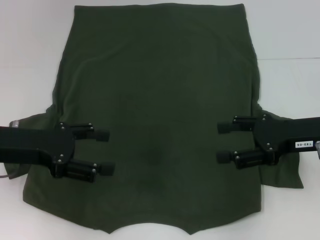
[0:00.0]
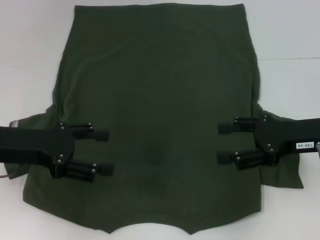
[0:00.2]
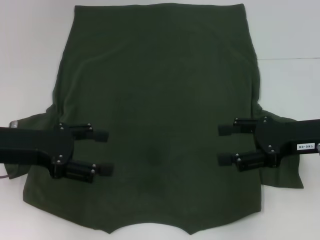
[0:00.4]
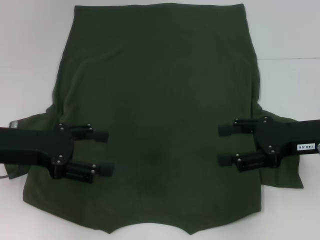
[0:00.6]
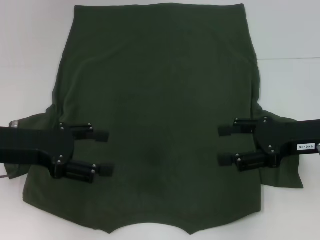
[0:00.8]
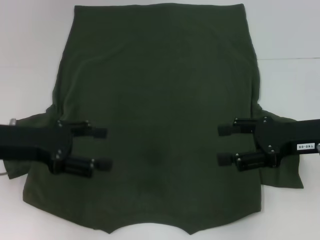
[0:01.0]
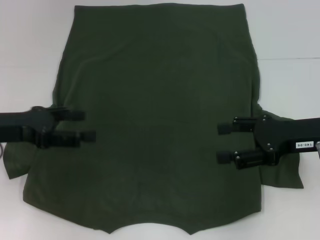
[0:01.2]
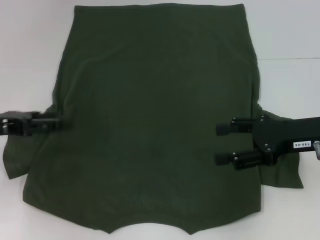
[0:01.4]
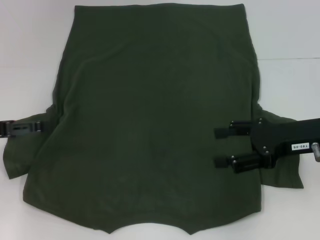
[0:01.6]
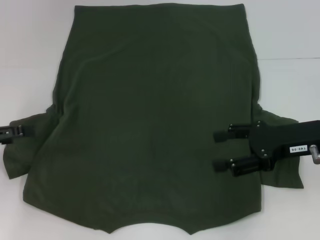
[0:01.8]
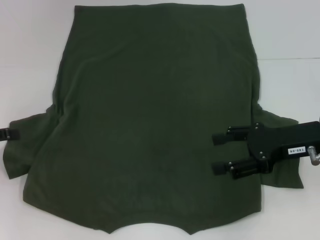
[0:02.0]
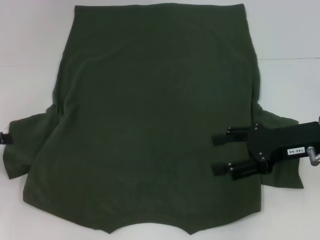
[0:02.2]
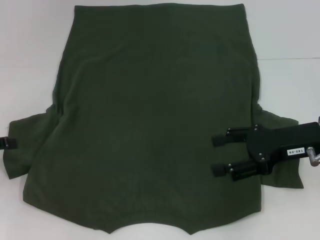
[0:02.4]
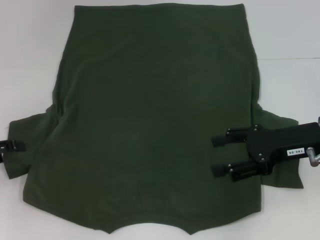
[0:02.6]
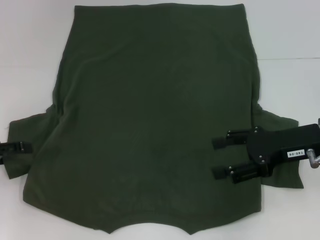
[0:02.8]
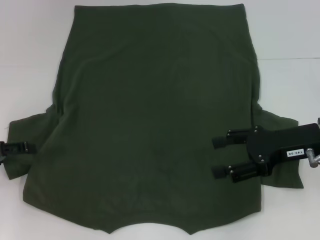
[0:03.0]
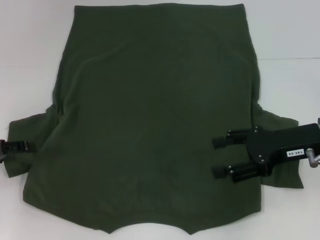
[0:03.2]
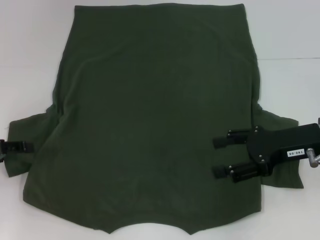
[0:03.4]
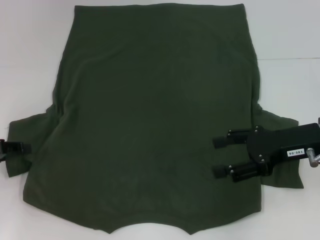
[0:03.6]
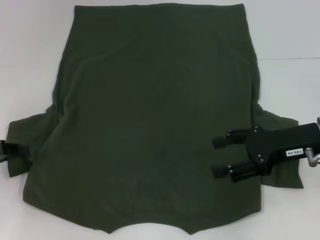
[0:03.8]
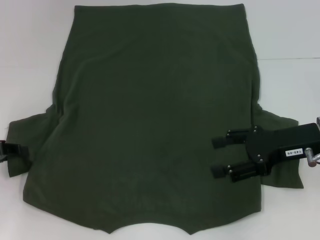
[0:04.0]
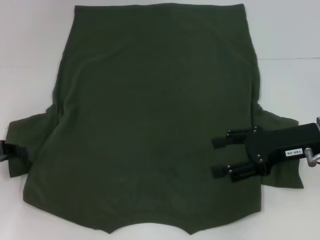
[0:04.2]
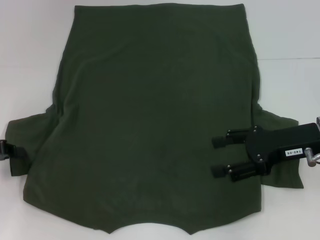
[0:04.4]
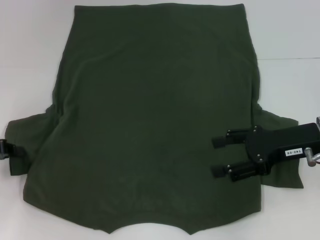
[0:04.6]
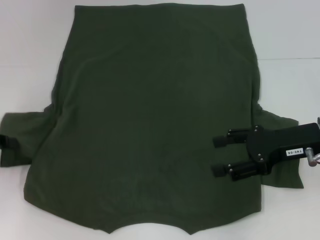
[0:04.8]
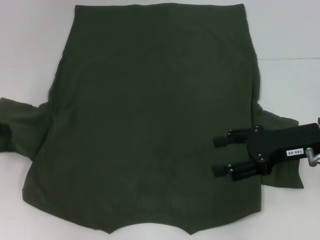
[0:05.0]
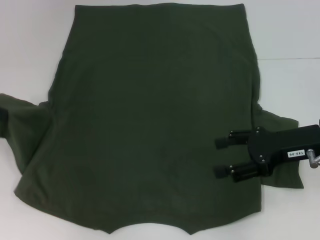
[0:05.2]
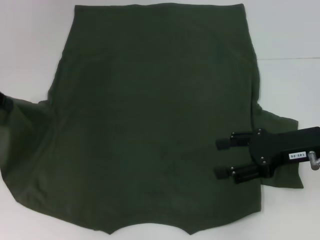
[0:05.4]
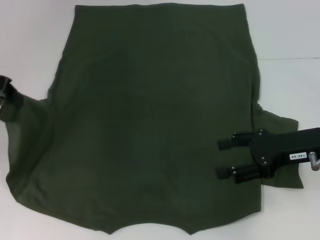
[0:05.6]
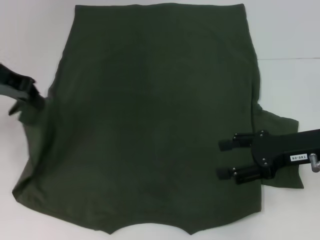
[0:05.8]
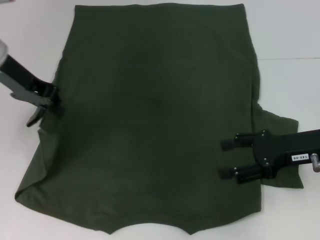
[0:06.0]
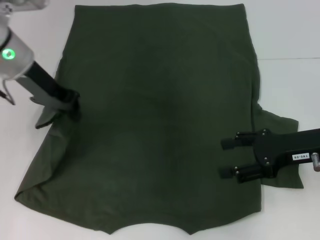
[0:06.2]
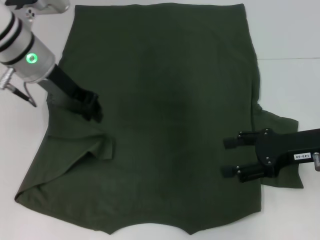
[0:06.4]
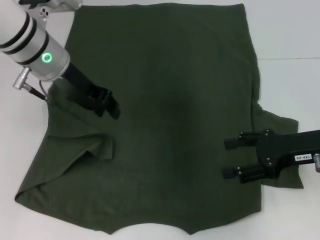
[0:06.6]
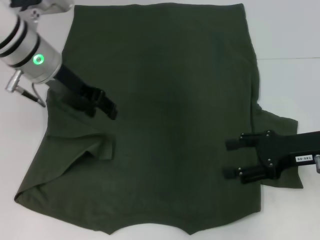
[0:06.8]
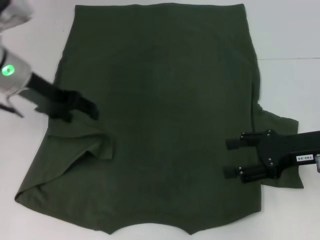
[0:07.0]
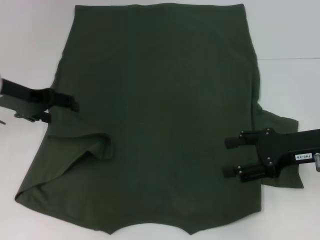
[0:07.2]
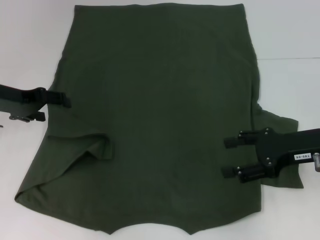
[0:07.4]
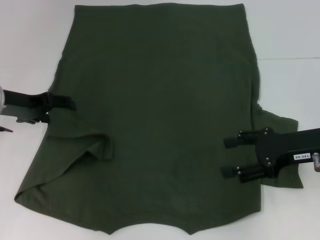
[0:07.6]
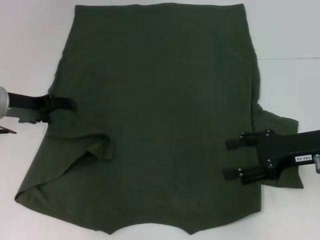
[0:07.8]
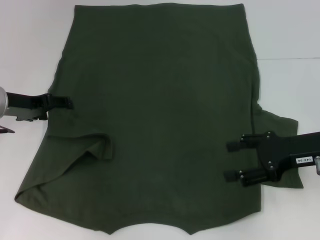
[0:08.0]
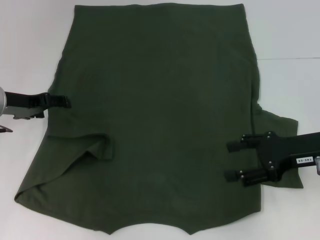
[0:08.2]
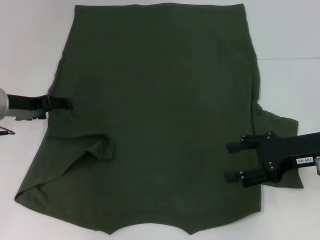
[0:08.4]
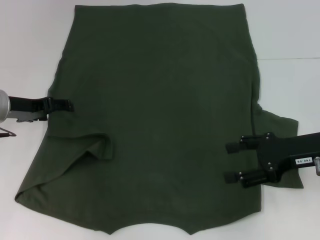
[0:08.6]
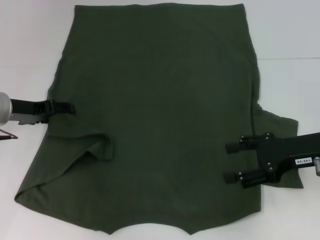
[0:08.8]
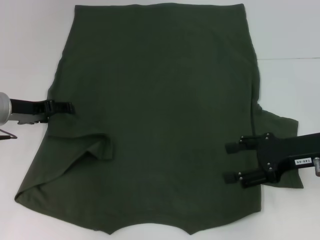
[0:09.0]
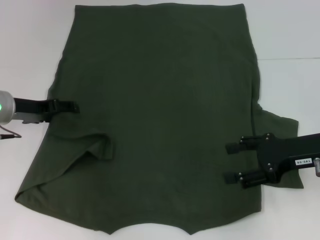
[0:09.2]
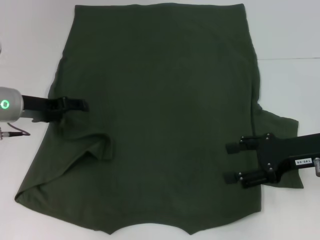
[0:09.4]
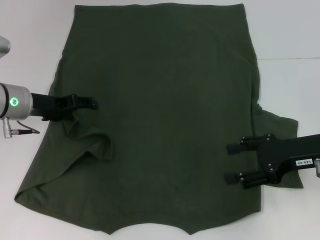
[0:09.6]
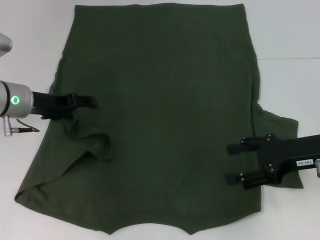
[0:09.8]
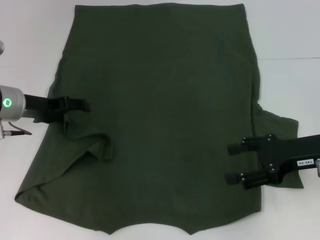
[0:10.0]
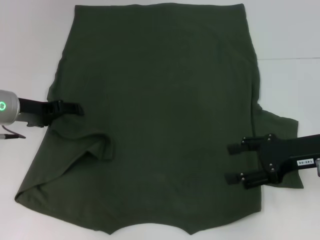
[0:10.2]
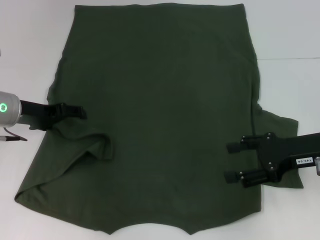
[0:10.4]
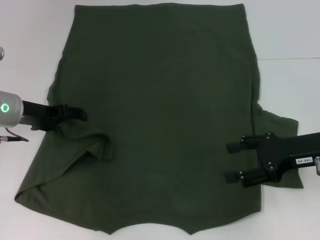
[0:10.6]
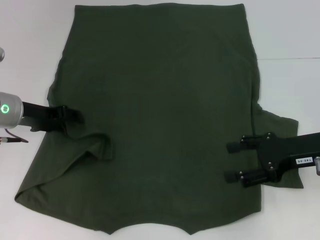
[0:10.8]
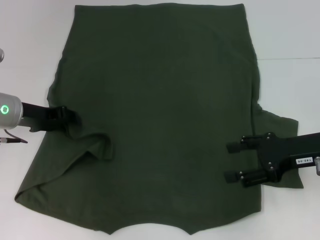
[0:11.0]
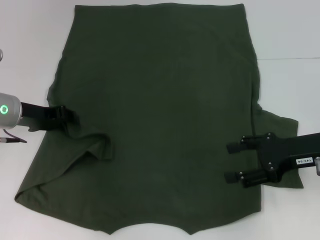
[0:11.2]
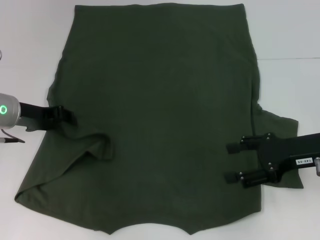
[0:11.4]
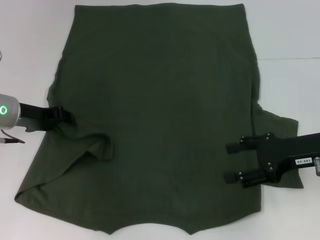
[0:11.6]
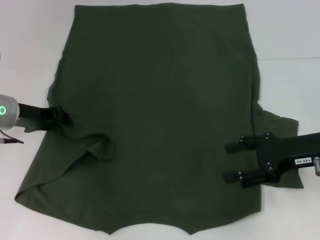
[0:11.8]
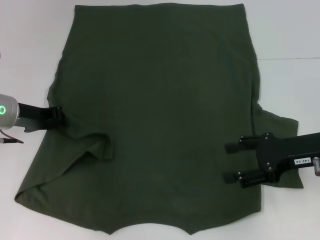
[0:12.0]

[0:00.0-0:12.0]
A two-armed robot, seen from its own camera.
0:00.0 to 0:01.6: The left gripper moves to the left, roughly 10 cm.
0:04.4 to 0:06.0: The left gripper shifts approximately 20 cm upward, to the right and forward.
0:06.0 to 0:07.6: The left gripper moves downward, roughly 10 cm, travels to the right and back again, some 5 cm each way, and opens its fingers.
0:07.6 to 0:10.4: There are only small adjustments of the grippers.
0:10.4 to 0:12.0: The left gripper closes up.

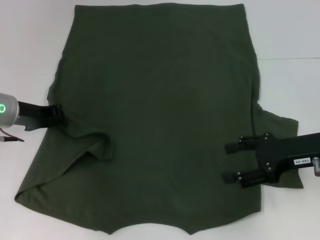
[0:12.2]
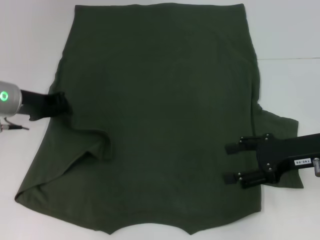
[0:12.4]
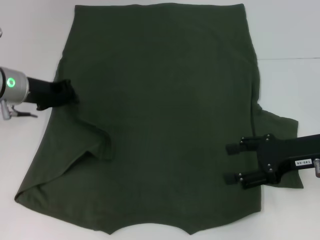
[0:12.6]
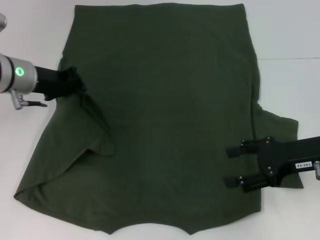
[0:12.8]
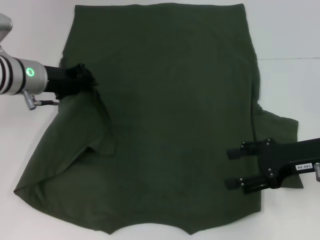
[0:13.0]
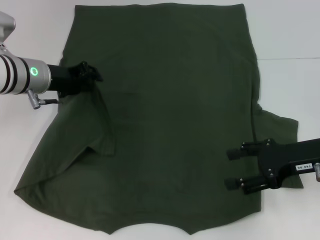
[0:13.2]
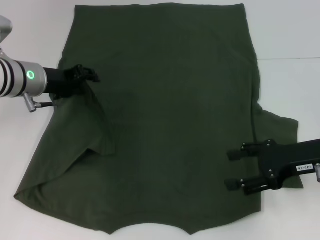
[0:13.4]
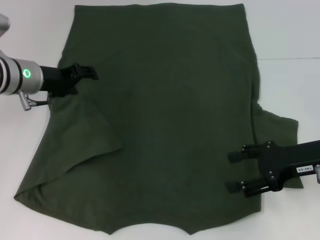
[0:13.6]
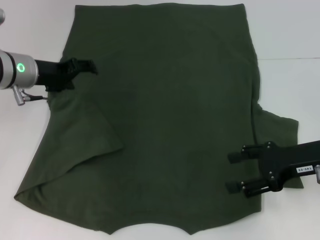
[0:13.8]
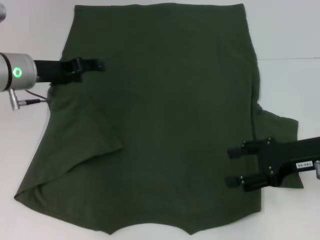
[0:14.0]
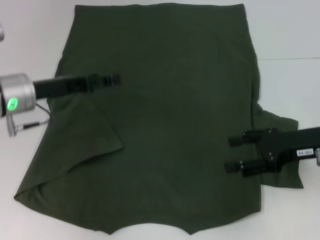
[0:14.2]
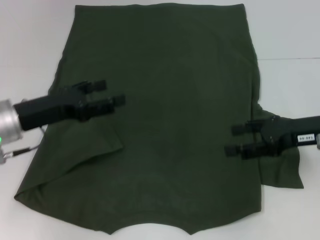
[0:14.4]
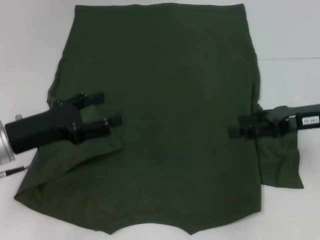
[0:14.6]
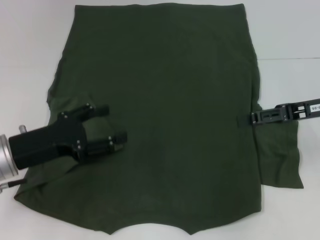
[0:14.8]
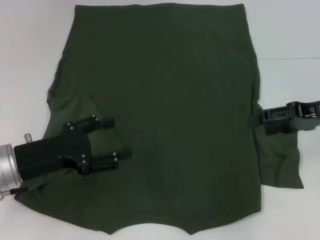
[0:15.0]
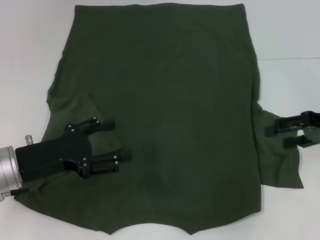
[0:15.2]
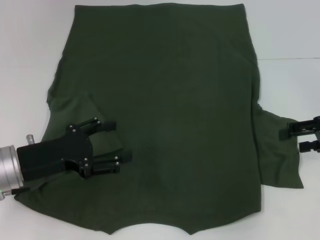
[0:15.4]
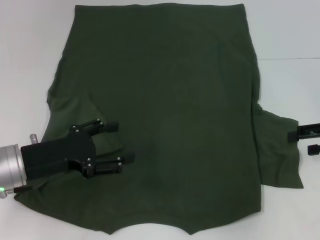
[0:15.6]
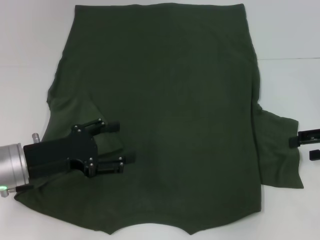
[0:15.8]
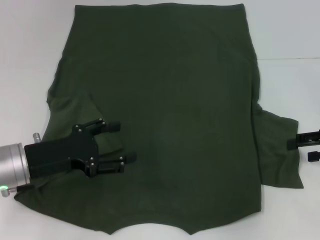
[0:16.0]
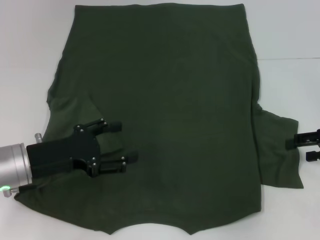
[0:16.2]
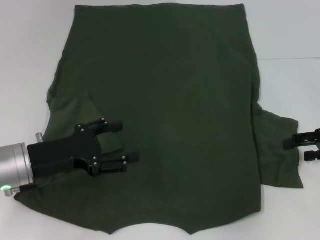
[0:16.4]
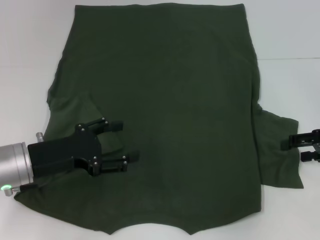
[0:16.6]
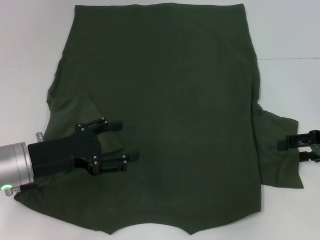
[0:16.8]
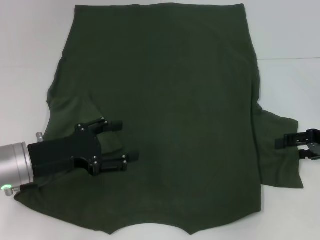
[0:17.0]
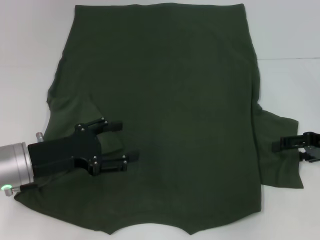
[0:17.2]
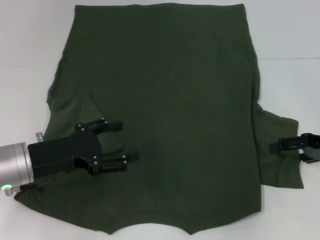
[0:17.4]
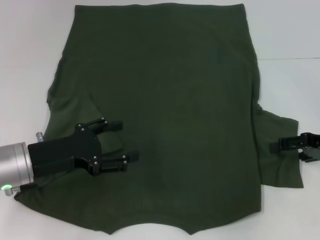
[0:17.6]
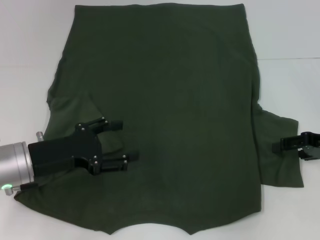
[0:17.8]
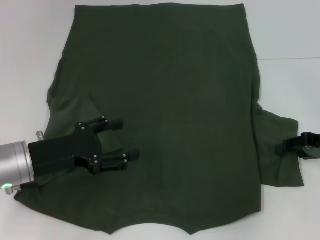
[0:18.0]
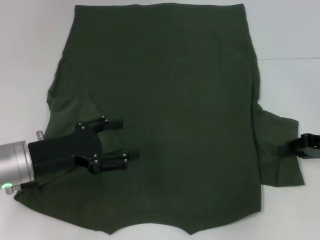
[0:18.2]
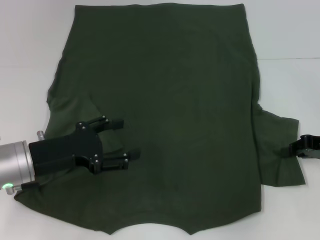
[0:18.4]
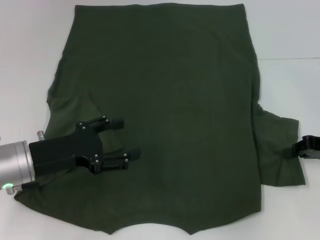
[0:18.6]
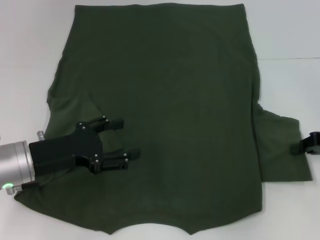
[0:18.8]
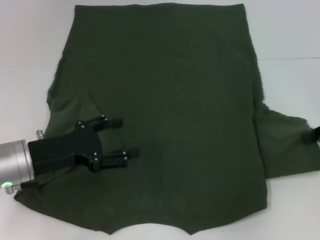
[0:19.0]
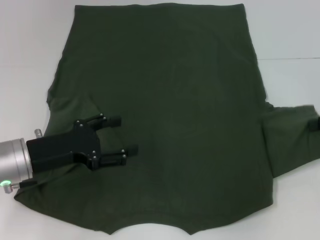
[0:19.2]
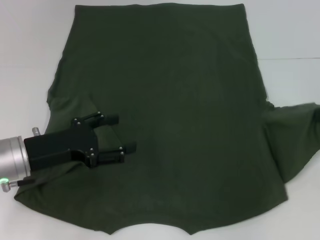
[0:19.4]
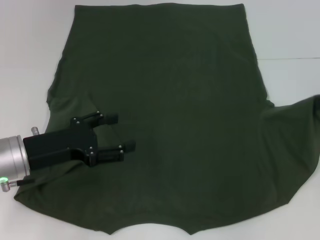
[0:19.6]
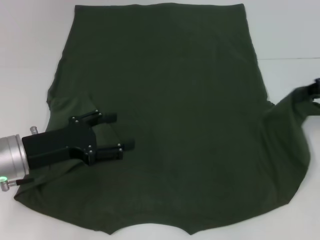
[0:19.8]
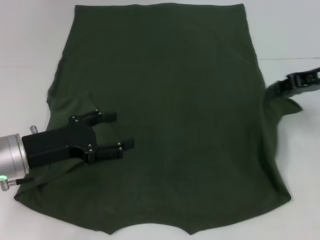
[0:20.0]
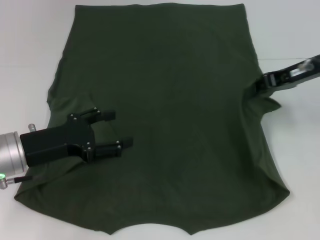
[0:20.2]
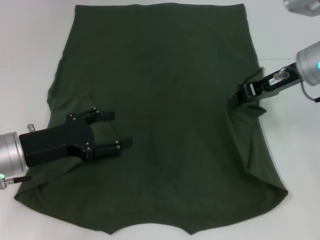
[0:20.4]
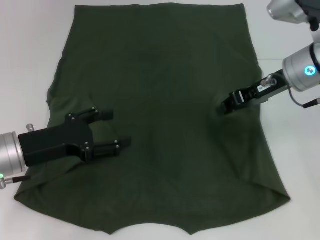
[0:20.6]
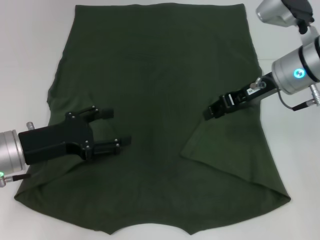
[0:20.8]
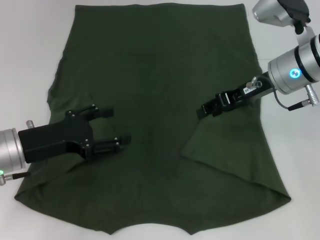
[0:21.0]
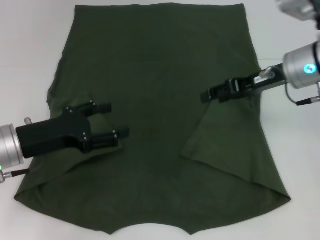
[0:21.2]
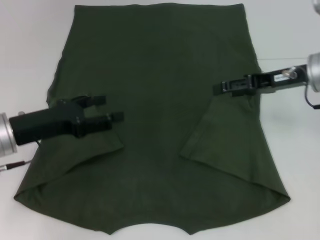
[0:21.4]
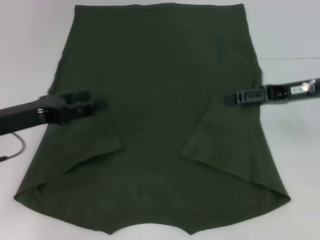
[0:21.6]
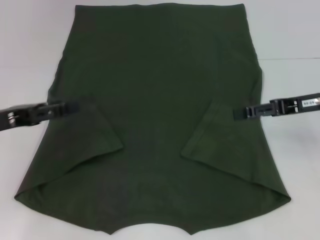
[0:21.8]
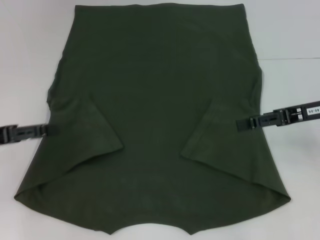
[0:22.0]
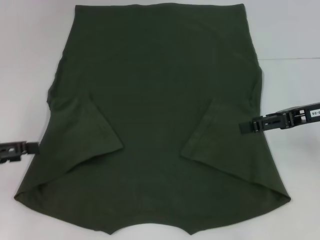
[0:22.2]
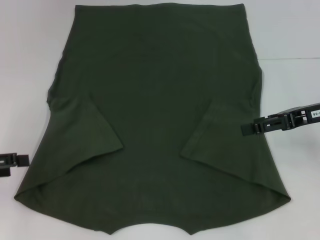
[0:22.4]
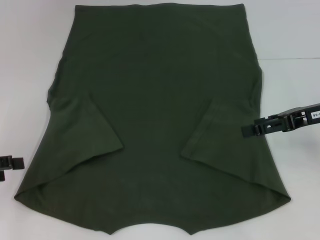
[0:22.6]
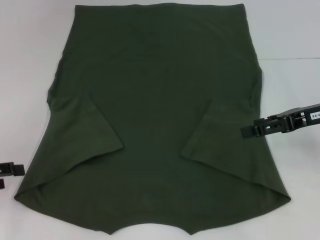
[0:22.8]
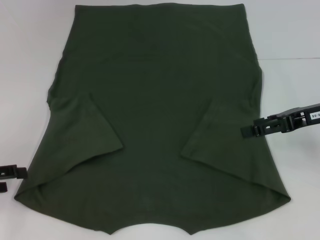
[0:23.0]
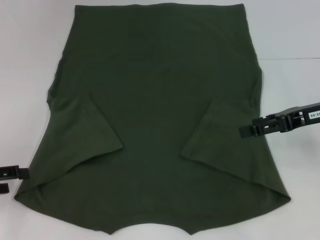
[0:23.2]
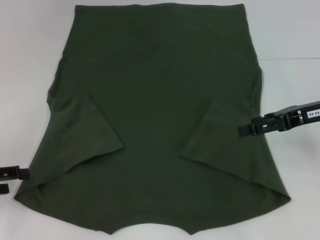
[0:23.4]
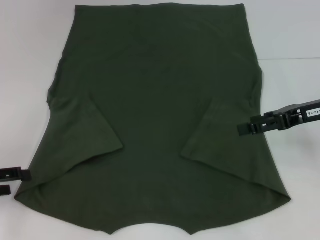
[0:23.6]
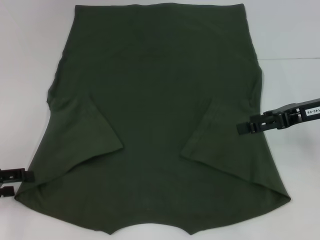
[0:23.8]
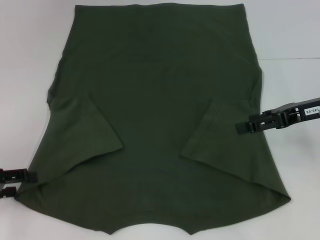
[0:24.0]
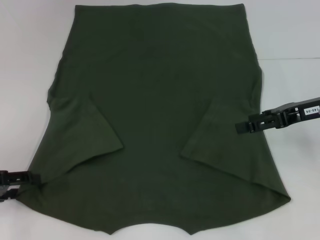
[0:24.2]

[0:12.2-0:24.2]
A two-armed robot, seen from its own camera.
Step, 0:13.6 to 0:20.6: Fold the bottom right sleeve with your right hand.
0:12.2 to 0:13.8: The left gripper shifts by roughly 5 cm, and opens.
0:13.8 to 0:15.2: The right gripper moves to the right, approximately 5 cm; the left gripper goes some 15 cm backward.
0:15.2 to 0:16.6: The grippers stay close to where they were, moving slightly.
0:16.6 to 0:18.2: The right gripper closes.
0:18.2 to 0:19.8: The right gripper heads upward, covering roughly 10 cm, and closes up.
0:19.8 to 0:21.2: The right gripper heads to the left, covering about 10 cm, and opens.
0:21.2 to 0:22.6: The right gripper moves to the right and backward, about 10 cm, and opens up, while the left gripper shifts roughly 15 cm to the left.
0:22.6 to 0:24.2: The grippers move only a little.
